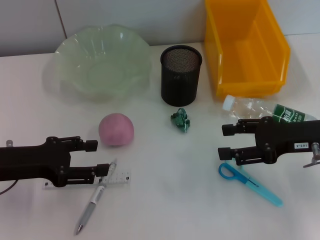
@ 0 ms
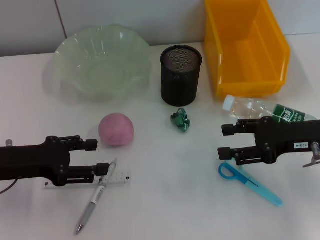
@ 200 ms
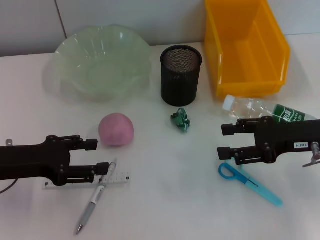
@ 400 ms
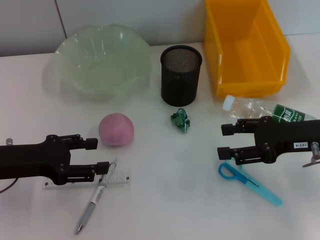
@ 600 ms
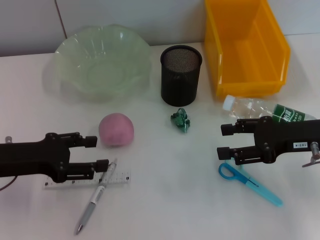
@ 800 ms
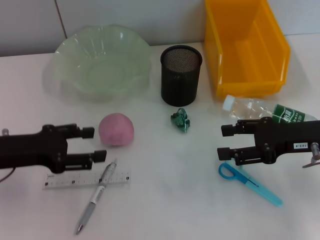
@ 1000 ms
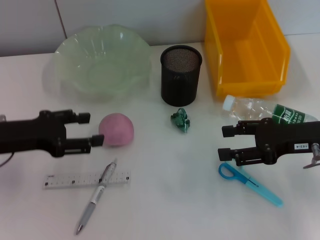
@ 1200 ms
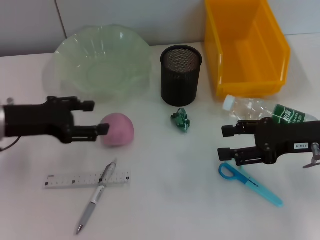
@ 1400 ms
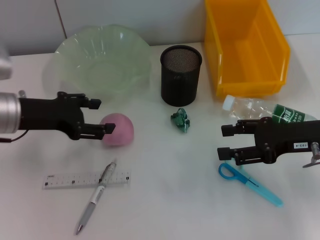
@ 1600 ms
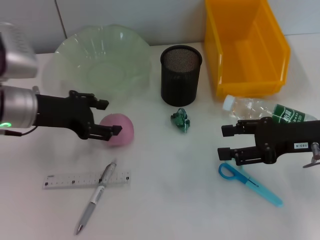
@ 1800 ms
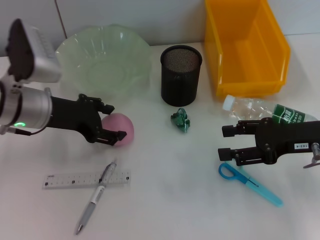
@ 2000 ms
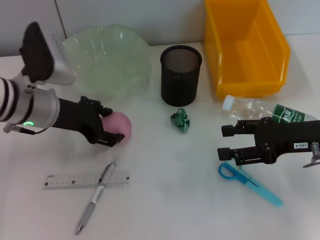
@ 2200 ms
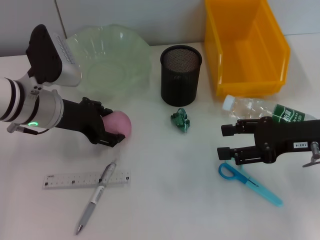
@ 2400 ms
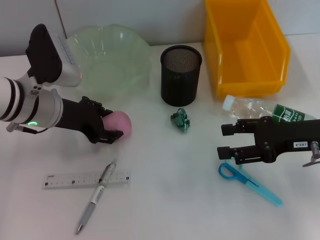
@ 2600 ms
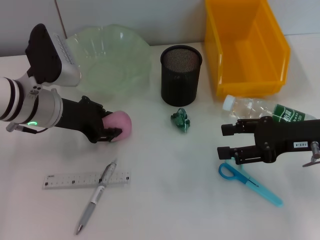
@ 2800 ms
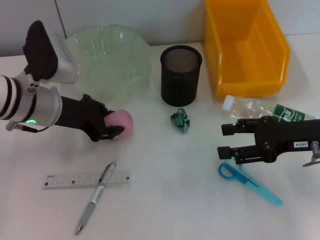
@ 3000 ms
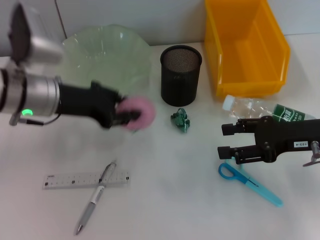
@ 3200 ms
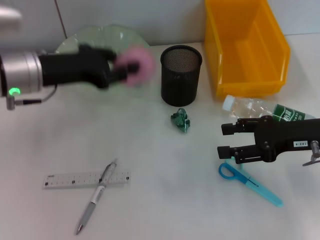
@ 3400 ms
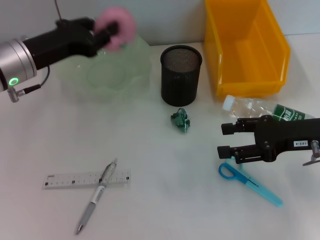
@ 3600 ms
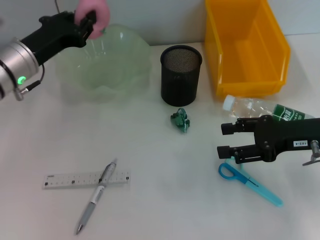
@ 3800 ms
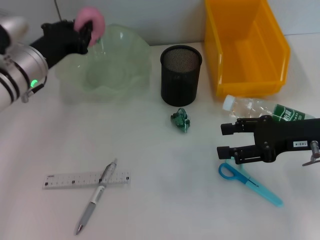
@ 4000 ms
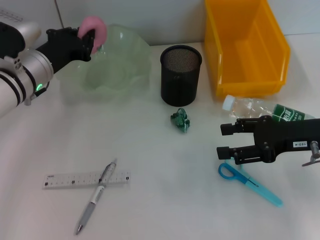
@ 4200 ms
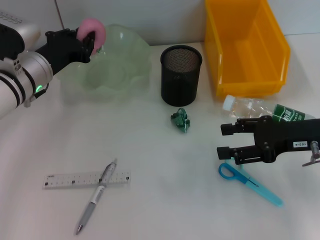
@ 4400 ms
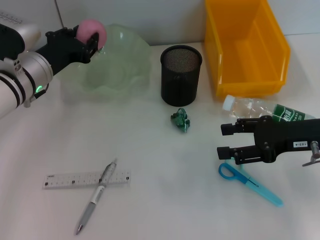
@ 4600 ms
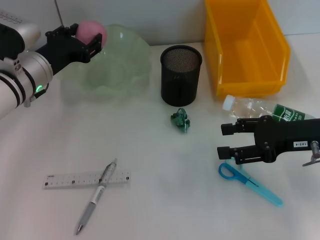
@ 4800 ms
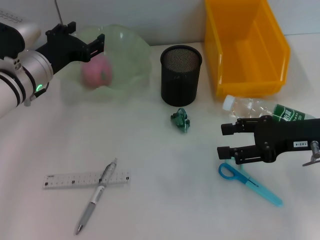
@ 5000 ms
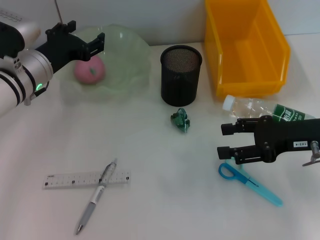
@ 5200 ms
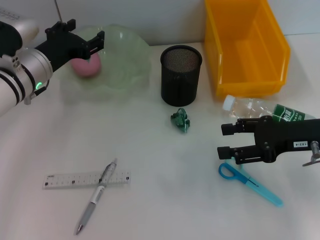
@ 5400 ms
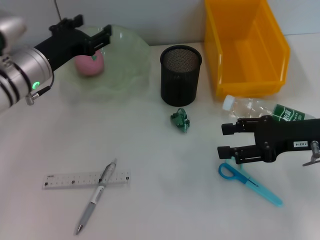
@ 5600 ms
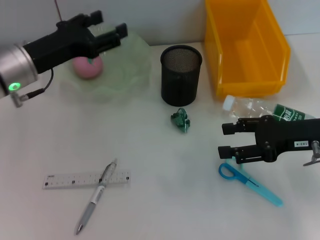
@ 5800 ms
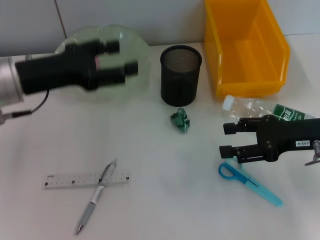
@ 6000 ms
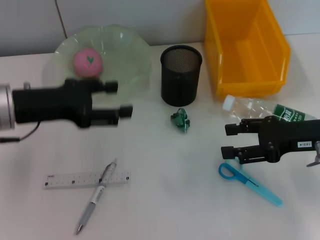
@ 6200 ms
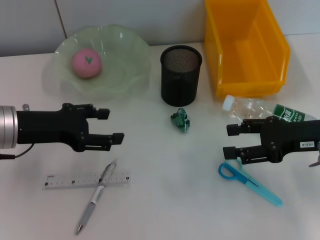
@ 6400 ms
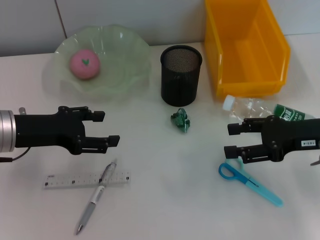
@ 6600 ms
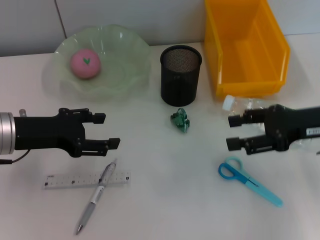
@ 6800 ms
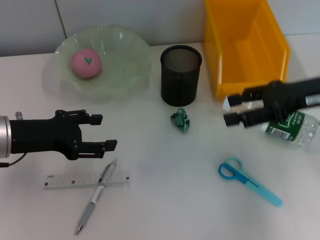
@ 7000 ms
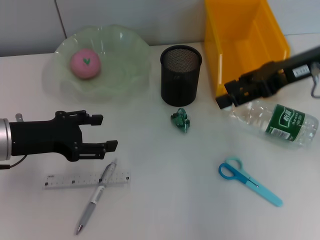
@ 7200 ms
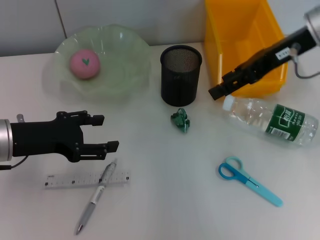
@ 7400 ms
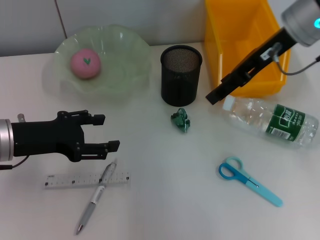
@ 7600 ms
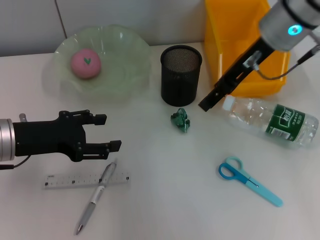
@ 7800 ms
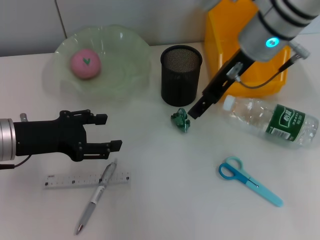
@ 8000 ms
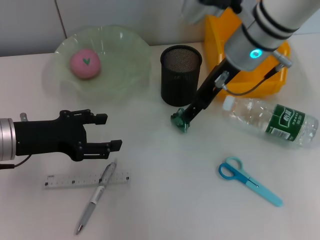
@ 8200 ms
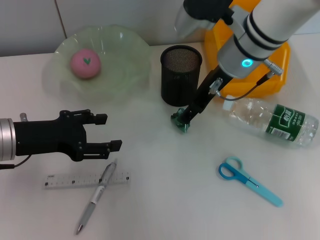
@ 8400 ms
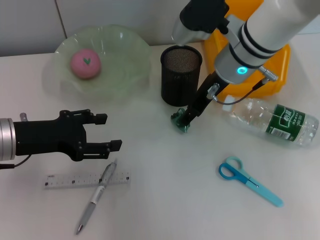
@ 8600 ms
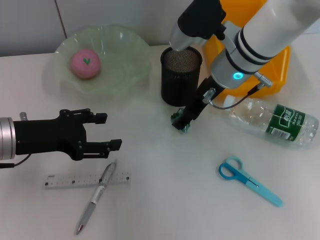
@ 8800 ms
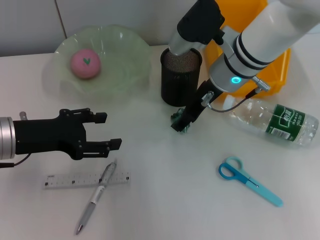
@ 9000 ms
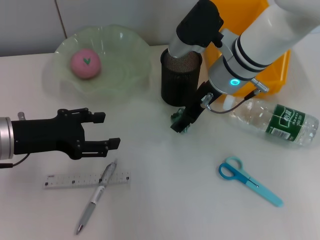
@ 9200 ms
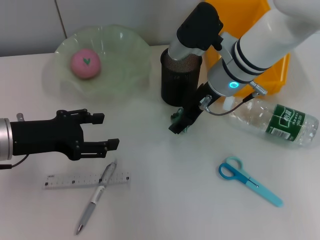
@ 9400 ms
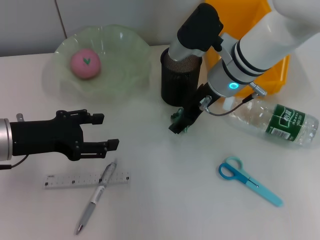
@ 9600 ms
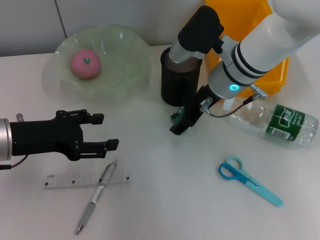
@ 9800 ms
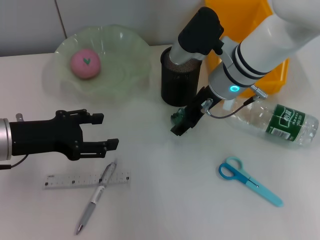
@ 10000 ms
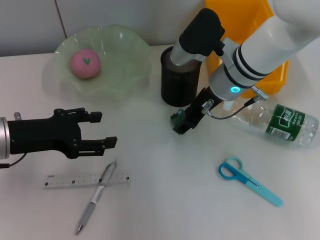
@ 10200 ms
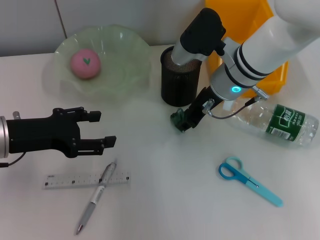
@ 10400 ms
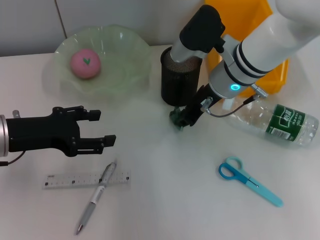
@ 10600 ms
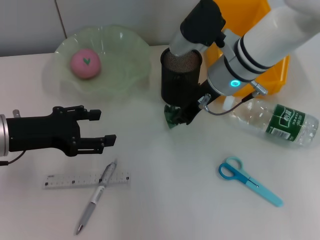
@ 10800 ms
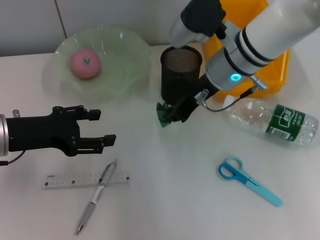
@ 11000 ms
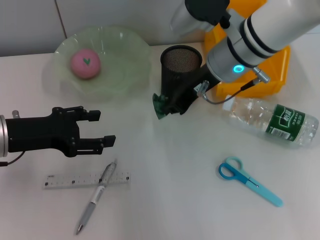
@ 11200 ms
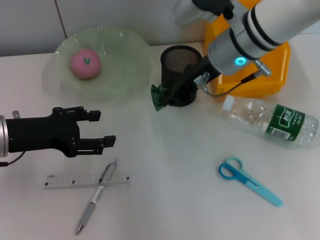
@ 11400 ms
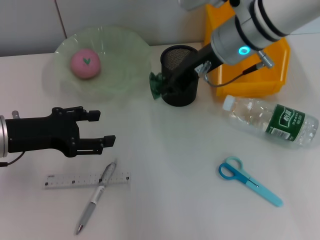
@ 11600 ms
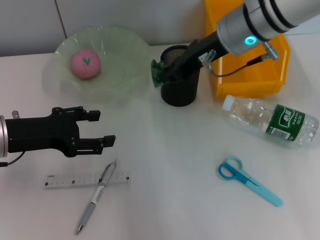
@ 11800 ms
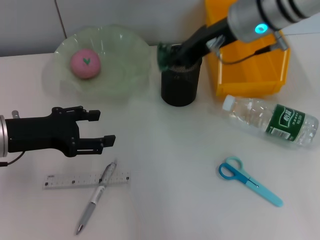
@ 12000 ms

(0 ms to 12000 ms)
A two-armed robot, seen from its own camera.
Step, 0 ms - 2800 ms: Grab the peach with the left hand.
Step, 3200 ms - 5000 ms: Place the peach into the fruit bowl with the left hand.
Step, 5200 ms - 10600 ms: Grab the plastic with the right hand.
0 ms - 1600 ms: The left gripper travels forward by roughly 5 cm.
1600 ms - 3000 ms: The left gripper travels to the right by approximately 5 cm, and closes.
3000 ms - 4400 ms: The left gripper closes its fingers.
4400 ms - 6000 ms: The left gripper moves backward and upward, some 10 cm, and opens its fingers.
6000 ms - 7600 ms: The right gripper goes approximately 20 cm upward, forward and to the left; the left gripper shifts by about 5 cm.
7600 ms - 9000 ms: The right gripper heads downward and to the left, covering roughly 10 cm.
9000 ms - 10400 ms: The grippers move only a little.
10400 ms - 12000 ms: The right gripper is displaced upward by about 10 cm, and closes up.

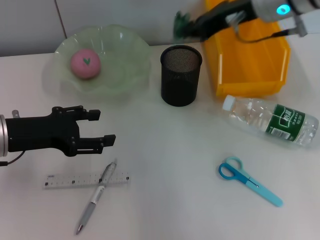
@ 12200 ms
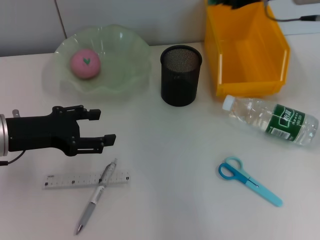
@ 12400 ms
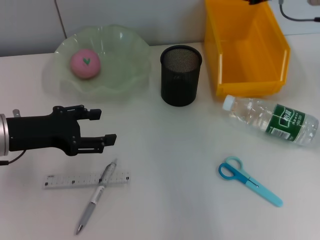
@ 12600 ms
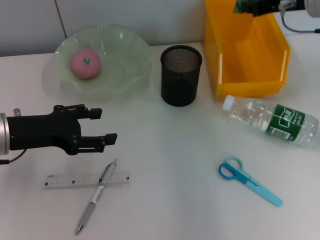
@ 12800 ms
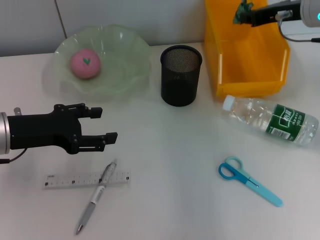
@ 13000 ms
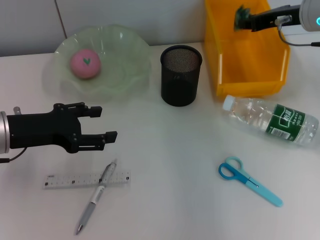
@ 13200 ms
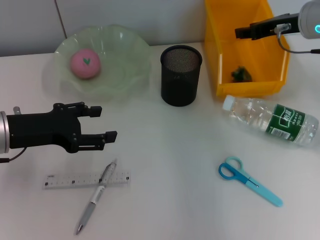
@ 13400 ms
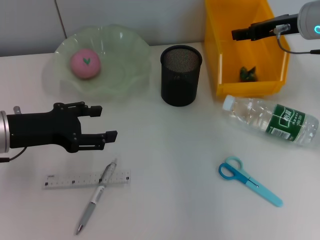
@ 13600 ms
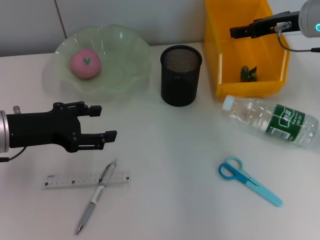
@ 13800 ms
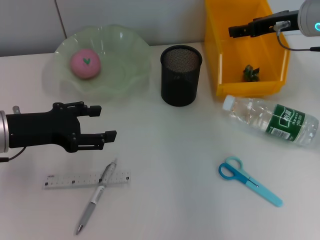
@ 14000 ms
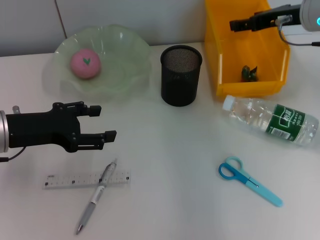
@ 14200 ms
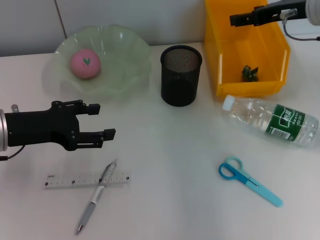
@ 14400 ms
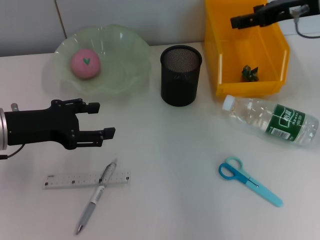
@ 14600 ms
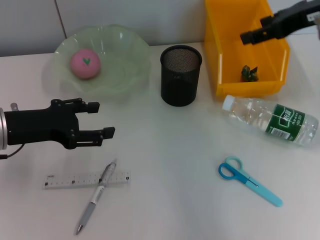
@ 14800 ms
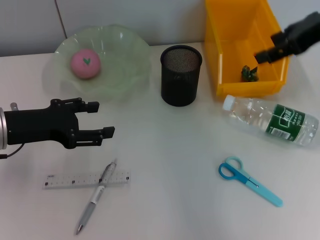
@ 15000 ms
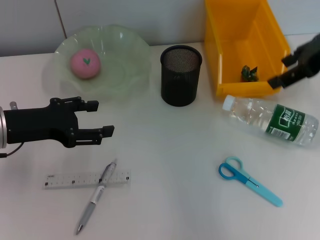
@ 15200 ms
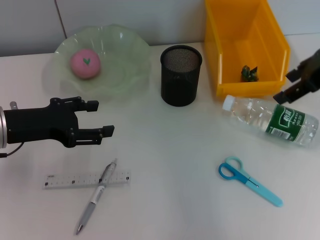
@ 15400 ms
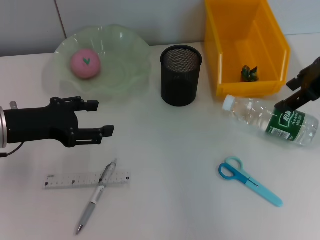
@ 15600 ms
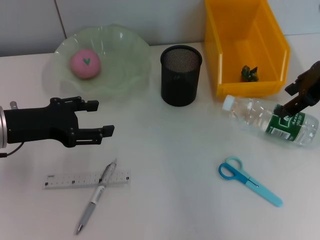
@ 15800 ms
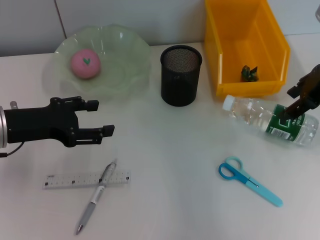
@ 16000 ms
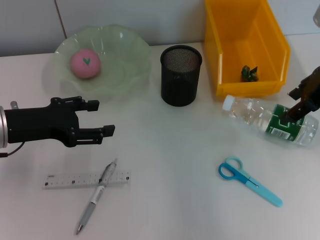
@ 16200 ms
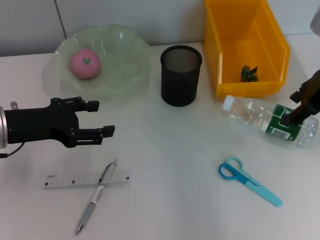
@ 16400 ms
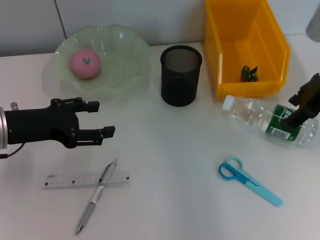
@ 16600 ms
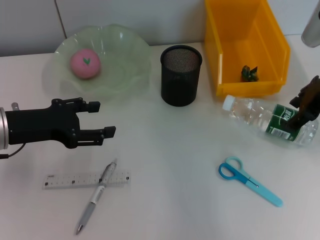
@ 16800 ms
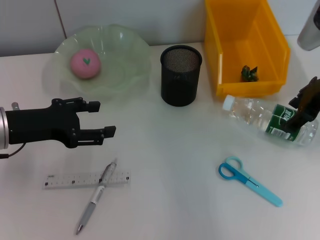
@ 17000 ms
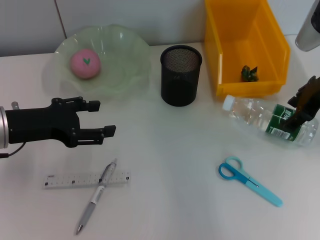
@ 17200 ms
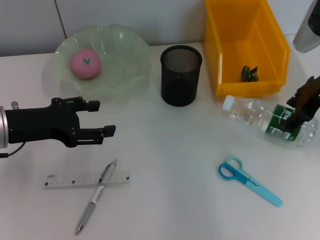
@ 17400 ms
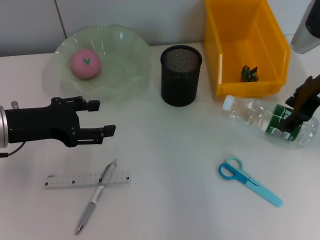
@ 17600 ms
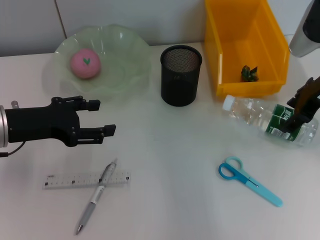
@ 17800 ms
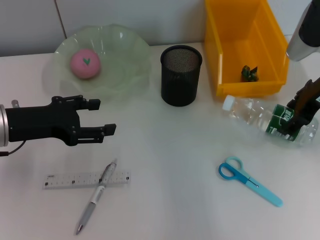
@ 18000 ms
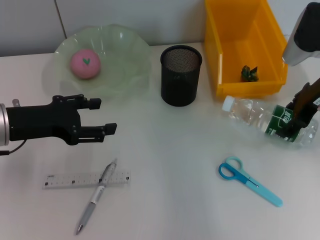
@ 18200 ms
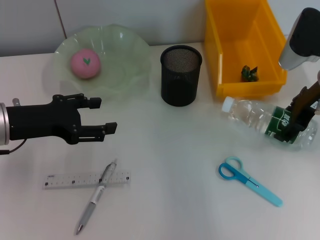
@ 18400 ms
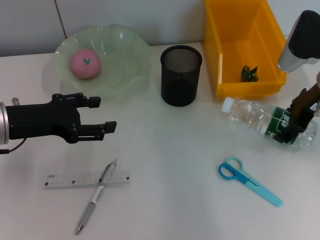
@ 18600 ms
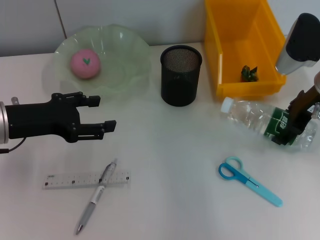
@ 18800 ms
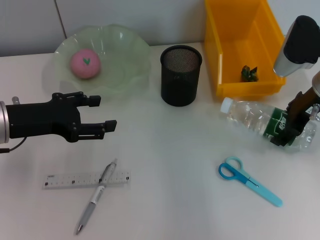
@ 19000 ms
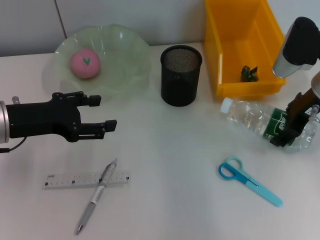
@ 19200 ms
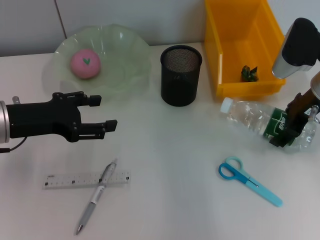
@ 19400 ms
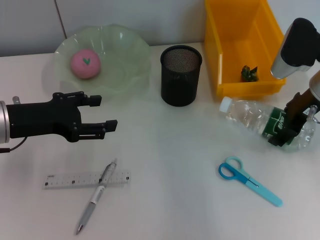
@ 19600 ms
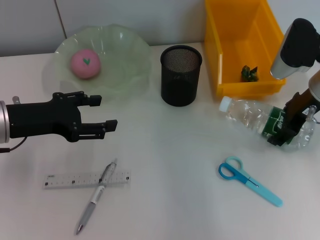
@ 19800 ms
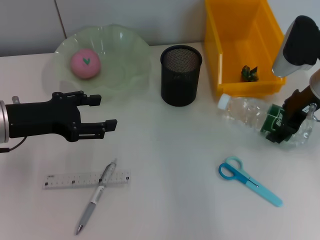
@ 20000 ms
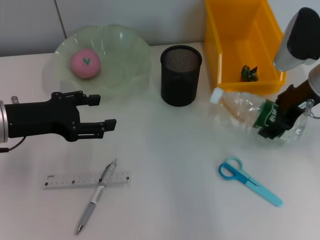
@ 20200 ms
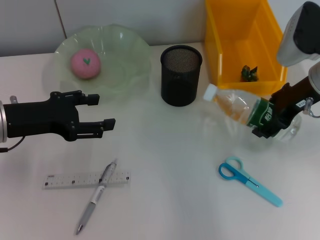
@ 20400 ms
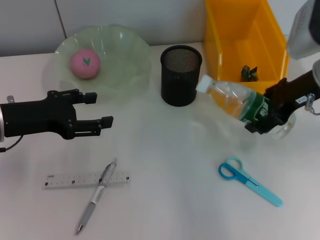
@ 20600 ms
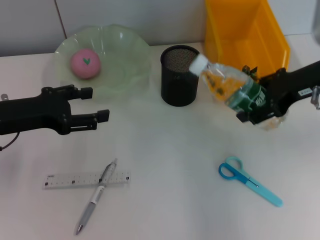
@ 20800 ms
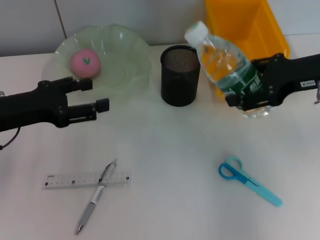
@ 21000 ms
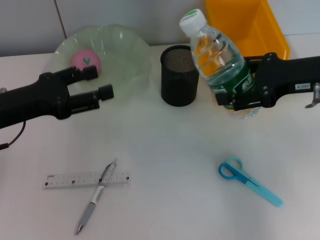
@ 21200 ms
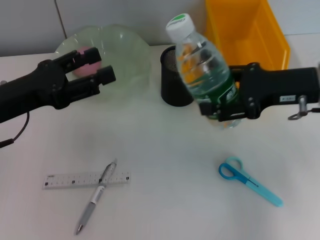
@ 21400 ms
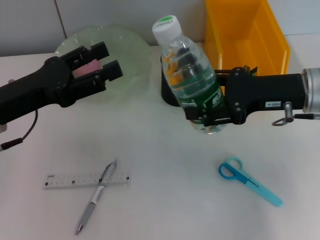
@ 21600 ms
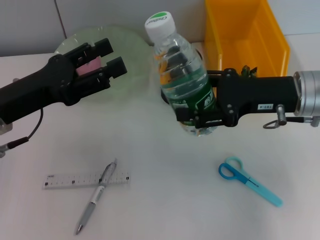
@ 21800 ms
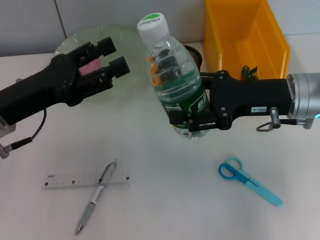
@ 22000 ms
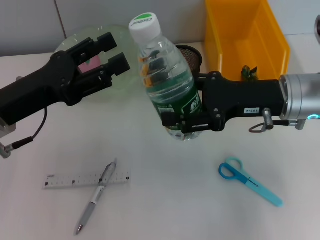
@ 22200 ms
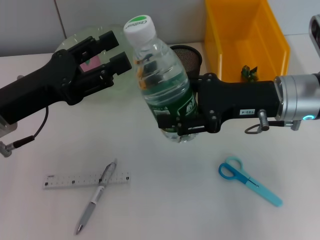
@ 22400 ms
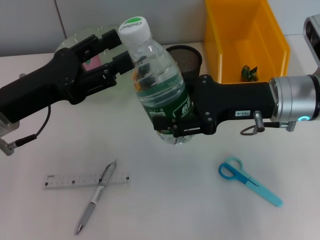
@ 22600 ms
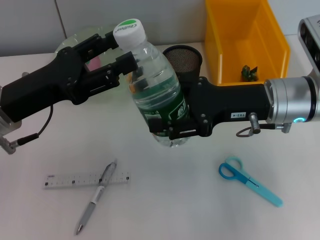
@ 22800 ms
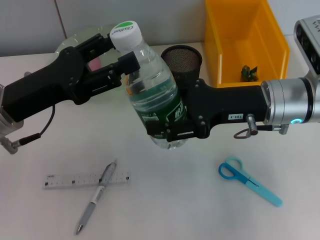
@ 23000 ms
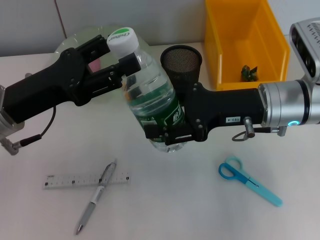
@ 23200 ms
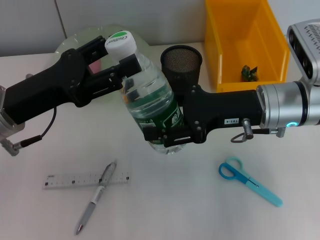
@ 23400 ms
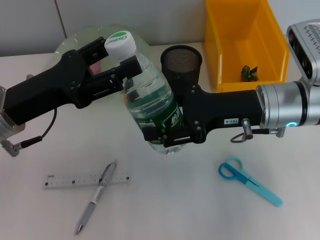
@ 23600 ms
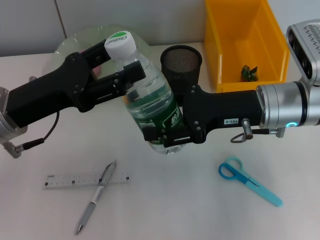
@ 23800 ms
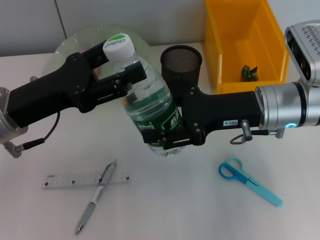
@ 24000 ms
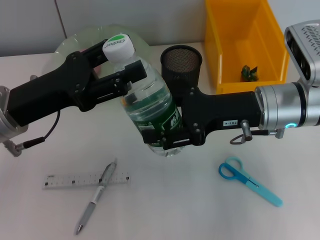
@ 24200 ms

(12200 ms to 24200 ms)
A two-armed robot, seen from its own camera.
Step, 13800 ms - 19400 ms: Grab the water bottle with the right hand.
12200 ms - 13800 ms: The right gripper is displaced to the right and downward by about 10 cm, and opens.
13800 ms - 15200 ms: The right gripper goes some 10 cm upward and backward.
15200 ms - 16600 ms: The right gripper shifts about 5 cm downward.
16600 ms - 19800 ms: There are only small adjustments of the grippers.
19800 ms - 21200 ms: The right gripper is displaced backward by some 5 cm.
21200 ms - 22600 ms: The right gripper heads to the left, covering approximately 10 cm.
